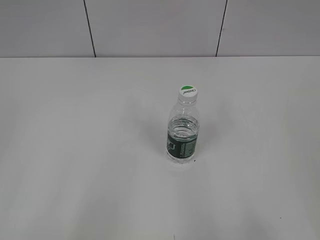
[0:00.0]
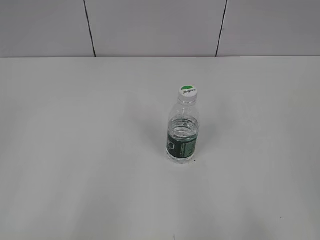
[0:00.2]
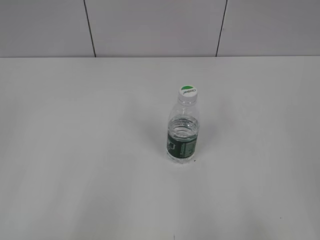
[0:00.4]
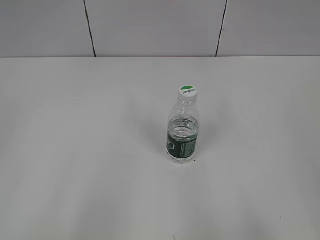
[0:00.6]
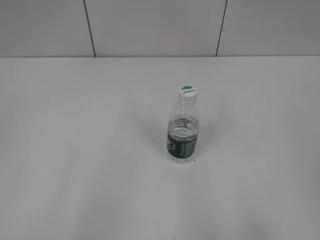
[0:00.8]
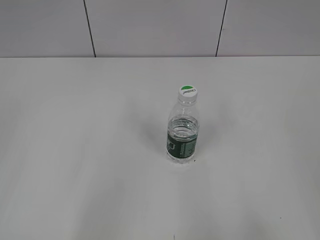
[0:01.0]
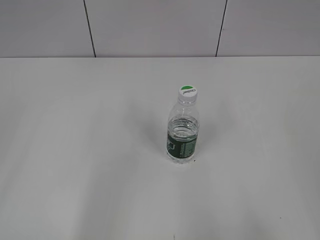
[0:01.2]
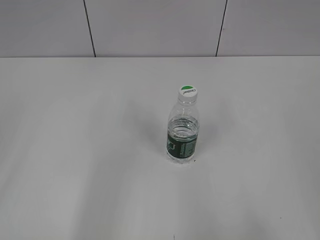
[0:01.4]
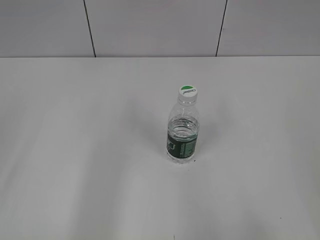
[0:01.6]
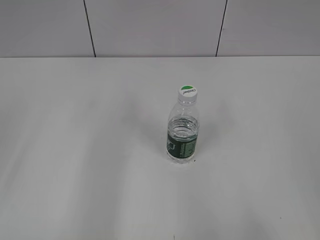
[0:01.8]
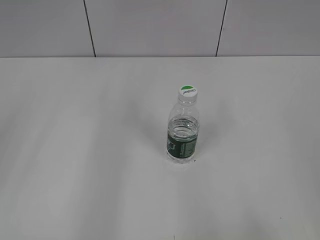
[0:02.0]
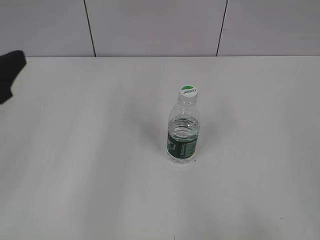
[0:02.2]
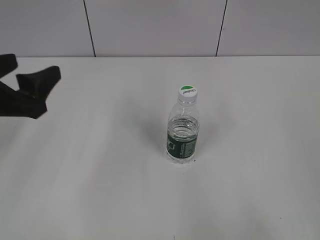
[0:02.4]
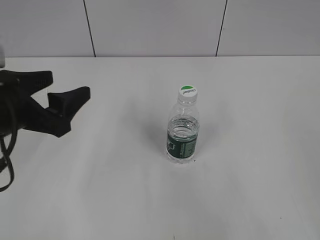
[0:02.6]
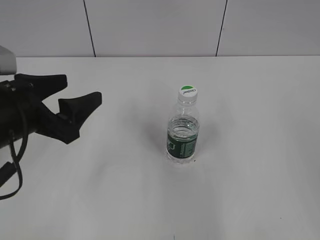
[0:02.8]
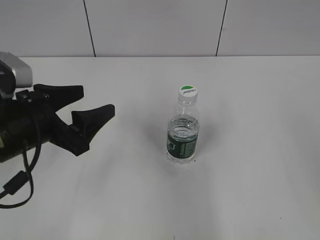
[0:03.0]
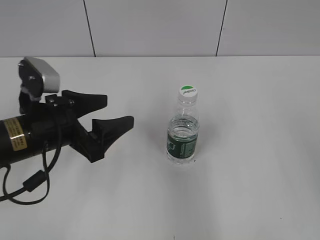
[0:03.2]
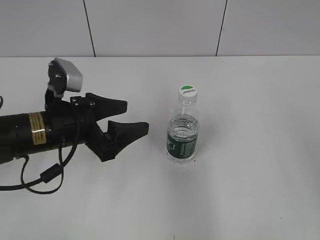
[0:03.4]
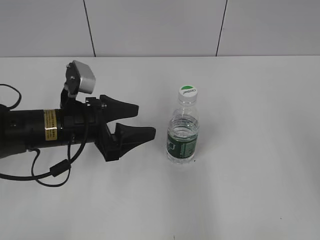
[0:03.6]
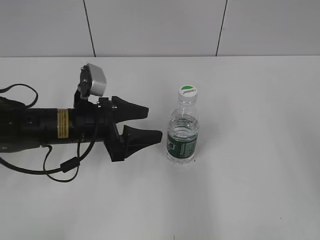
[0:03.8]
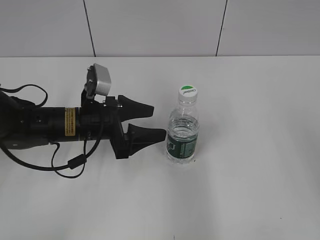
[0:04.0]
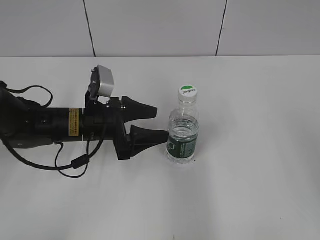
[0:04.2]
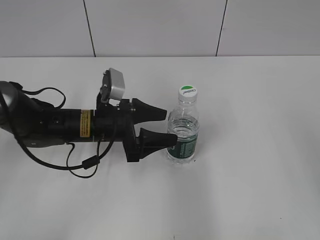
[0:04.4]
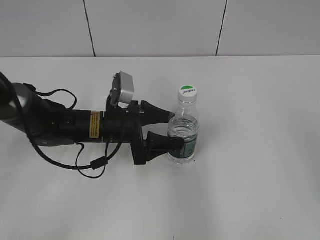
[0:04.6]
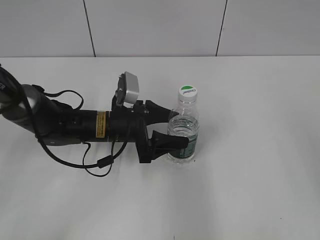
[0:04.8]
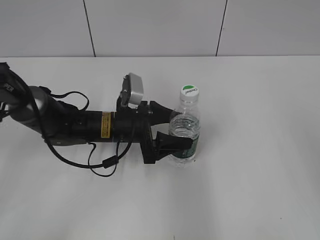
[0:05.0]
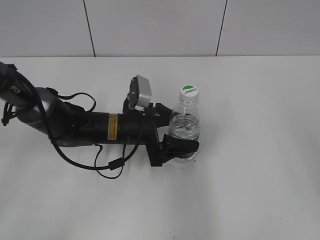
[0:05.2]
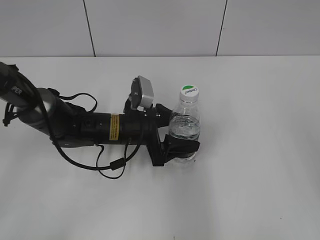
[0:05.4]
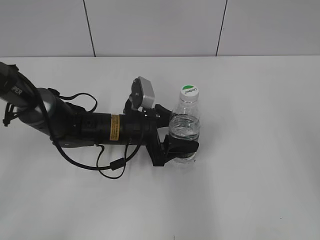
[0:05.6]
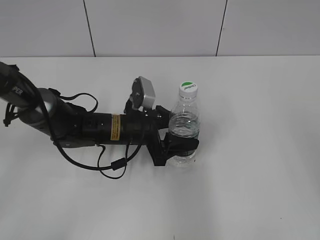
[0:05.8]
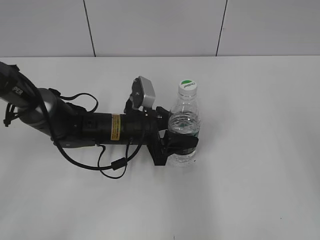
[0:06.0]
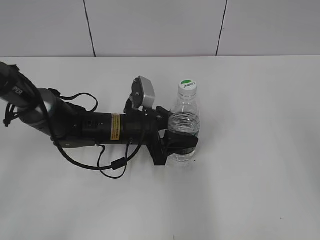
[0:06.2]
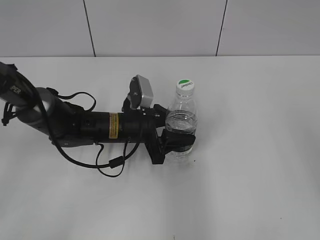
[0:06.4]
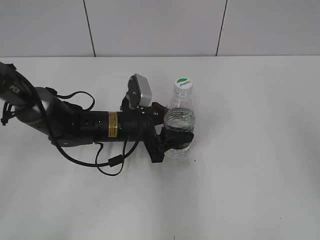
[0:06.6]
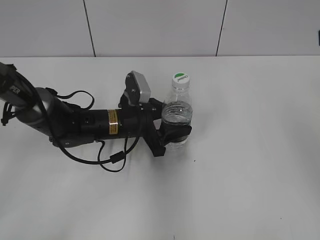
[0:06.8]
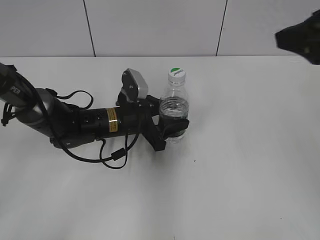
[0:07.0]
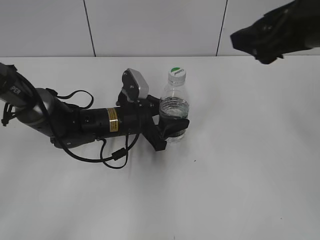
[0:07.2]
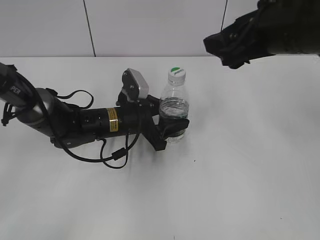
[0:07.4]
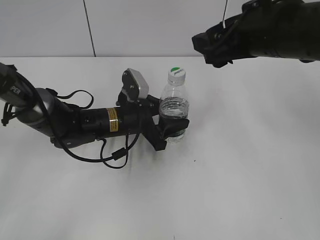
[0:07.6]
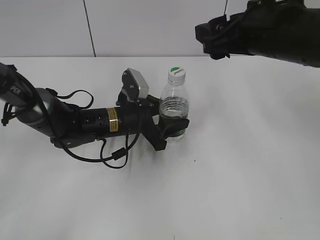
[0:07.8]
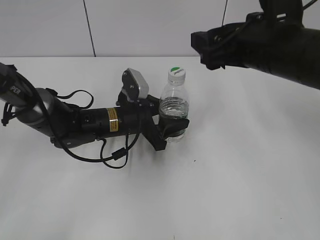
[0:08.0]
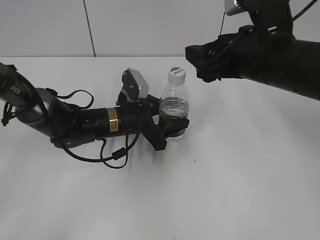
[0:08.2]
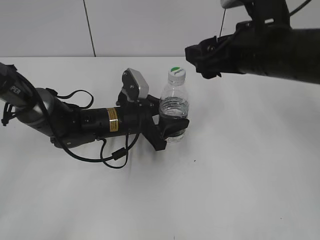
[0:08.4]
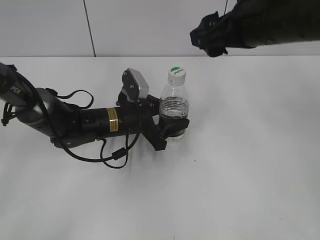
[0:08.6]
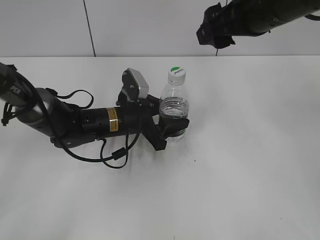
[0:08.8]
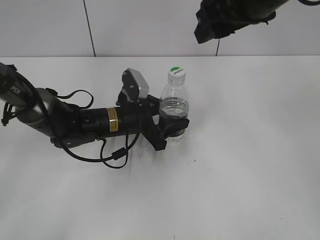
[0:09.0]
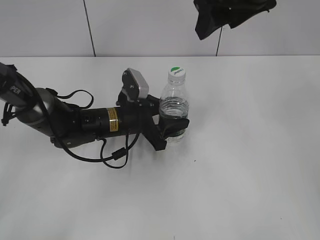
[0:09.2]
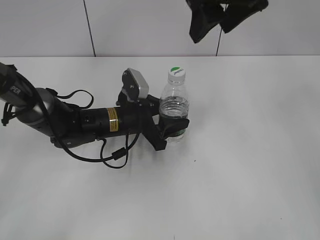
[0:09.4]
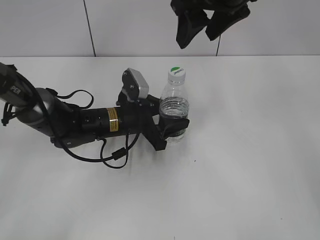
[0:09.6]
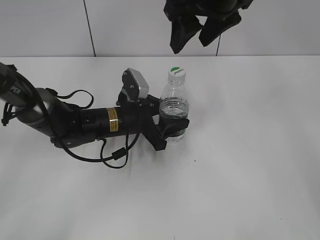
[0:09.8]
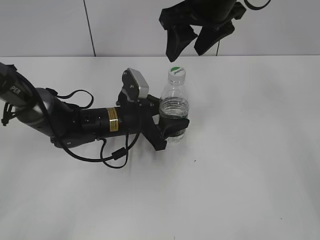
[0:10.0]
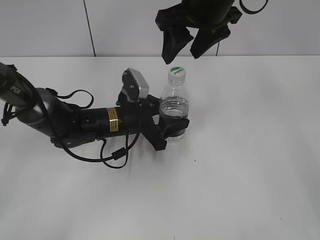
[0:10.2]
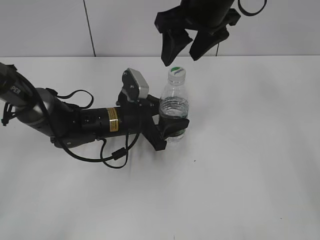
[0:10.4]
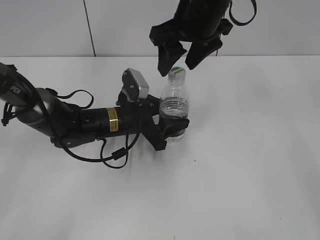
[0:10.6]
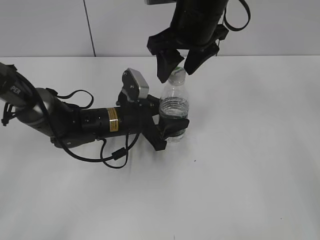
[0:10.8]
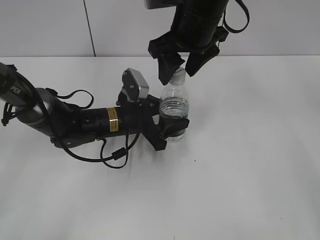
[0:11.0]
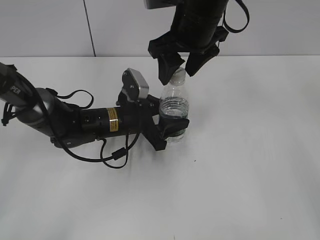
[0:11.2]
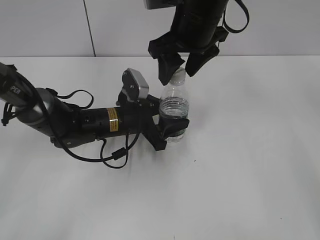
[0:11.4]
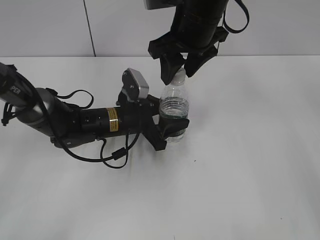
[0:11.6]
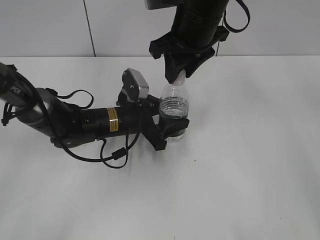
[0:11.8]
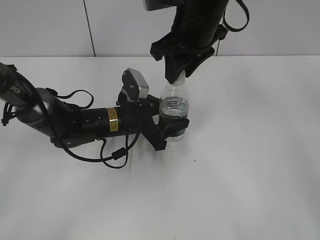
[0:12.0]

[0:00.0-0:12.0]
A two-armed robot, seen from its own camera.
Step, 0:00.0 to 0:06.2: Grasp the bottle and move it to the center of the table with the left gripper.
0:01.6 to 0:03.0: The left gripper heads forward, downward and to the right, covering about 20 cm.
0:03.0 to 0:04.4: The left gripper moves forward, downward and to the right, some 15 cm.
0:04.4 to 0:06.0: The left gripper shifts by some 5 cm, and closes.
0:06.0 to 0:07.6: The right gripper moves to the left and forward, some 20 cm.
0:07.6 to 0:09.0: The right gripper ends up roughly 5 cm from where it was.
0:09.0 to 0:10.4: The right gripper moves to the left and forward, approximately 5 cm.
0:10.4 to 0:12.0: The right gripper closes its fingers.

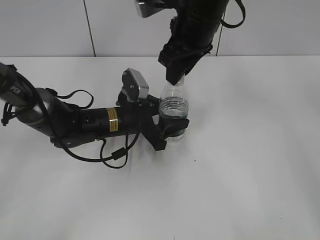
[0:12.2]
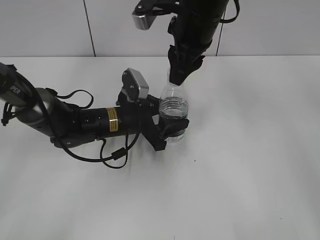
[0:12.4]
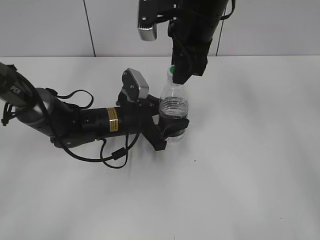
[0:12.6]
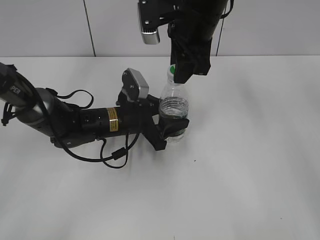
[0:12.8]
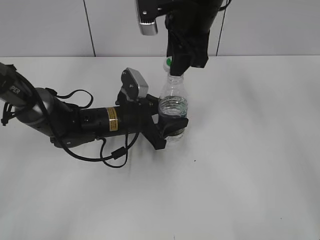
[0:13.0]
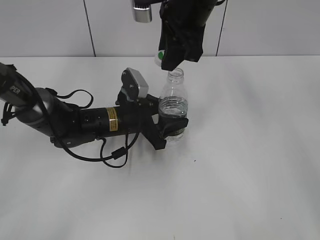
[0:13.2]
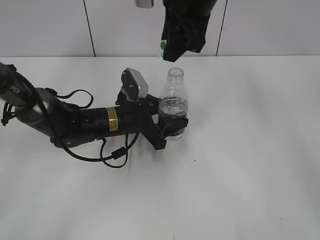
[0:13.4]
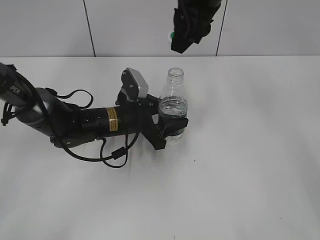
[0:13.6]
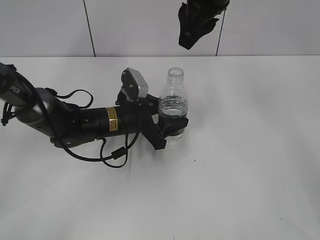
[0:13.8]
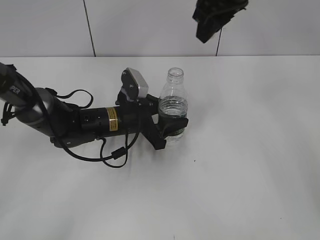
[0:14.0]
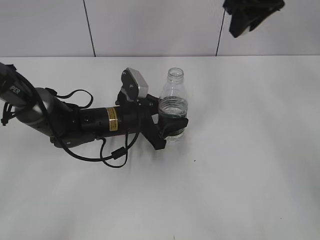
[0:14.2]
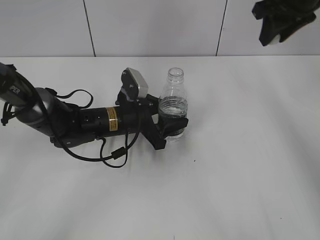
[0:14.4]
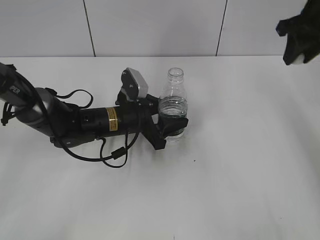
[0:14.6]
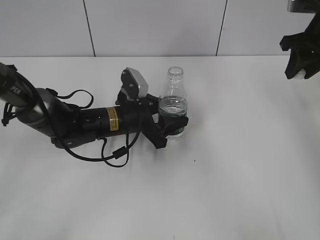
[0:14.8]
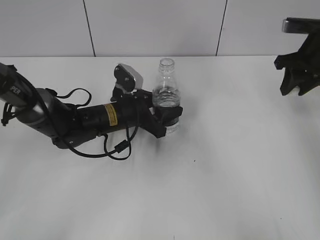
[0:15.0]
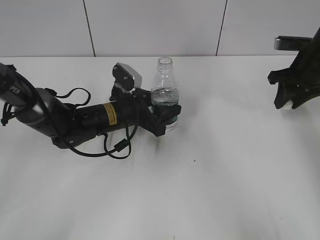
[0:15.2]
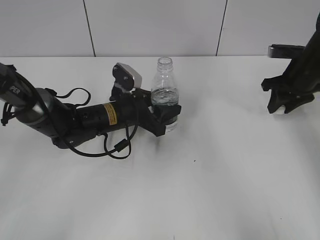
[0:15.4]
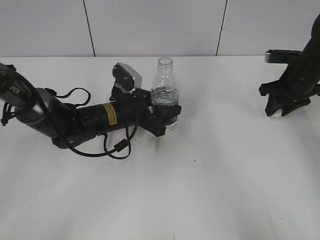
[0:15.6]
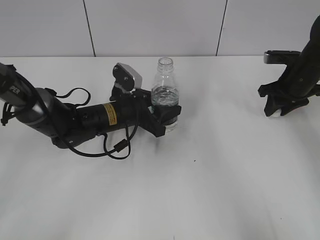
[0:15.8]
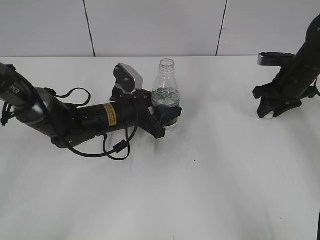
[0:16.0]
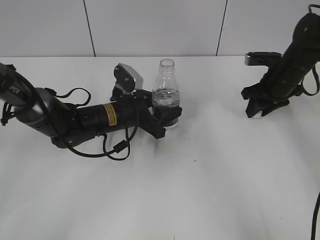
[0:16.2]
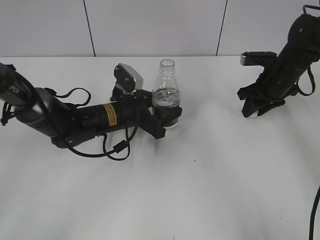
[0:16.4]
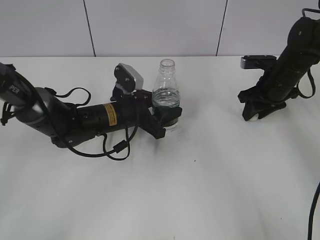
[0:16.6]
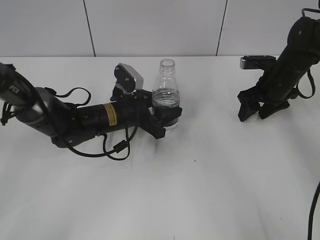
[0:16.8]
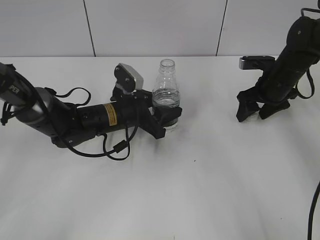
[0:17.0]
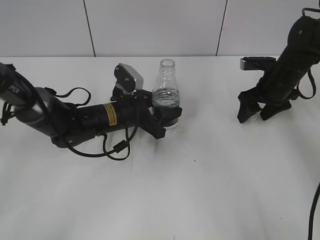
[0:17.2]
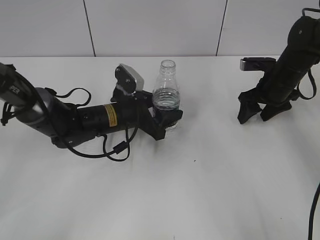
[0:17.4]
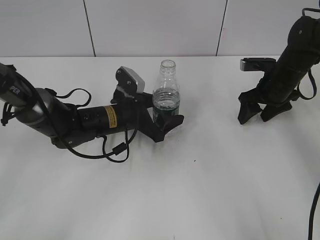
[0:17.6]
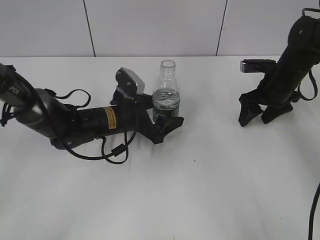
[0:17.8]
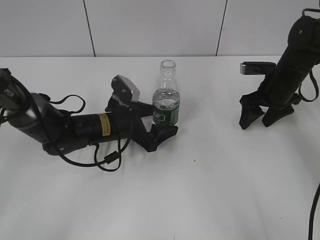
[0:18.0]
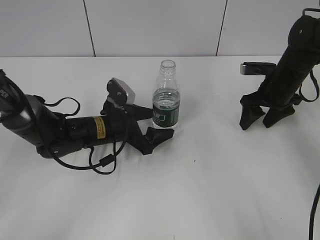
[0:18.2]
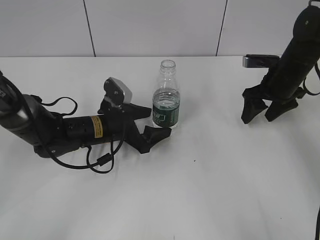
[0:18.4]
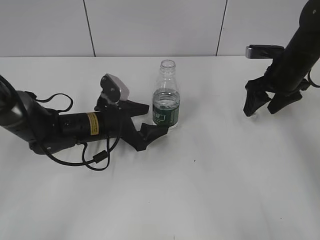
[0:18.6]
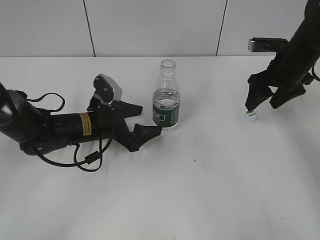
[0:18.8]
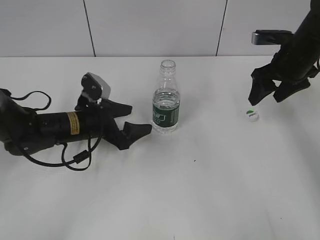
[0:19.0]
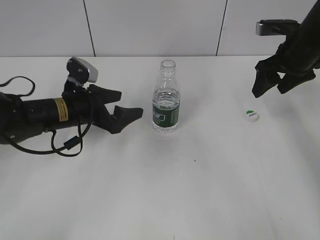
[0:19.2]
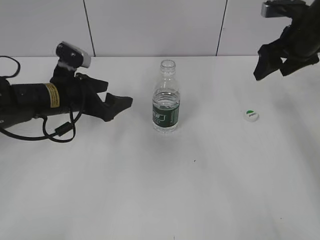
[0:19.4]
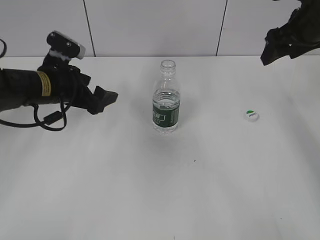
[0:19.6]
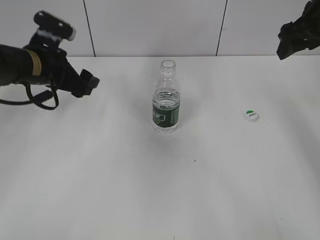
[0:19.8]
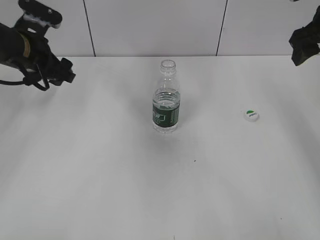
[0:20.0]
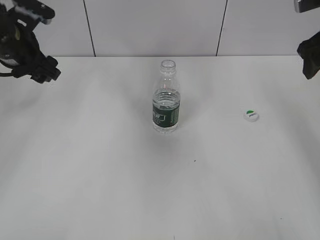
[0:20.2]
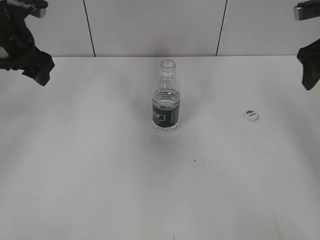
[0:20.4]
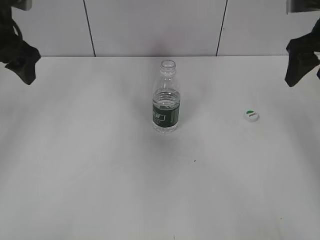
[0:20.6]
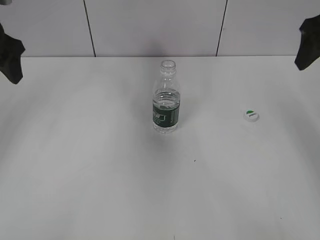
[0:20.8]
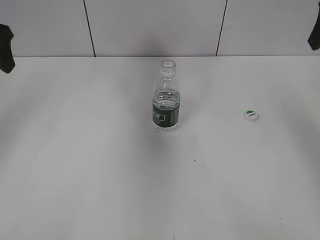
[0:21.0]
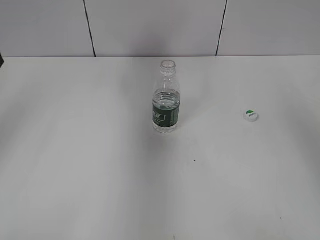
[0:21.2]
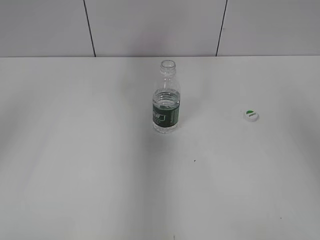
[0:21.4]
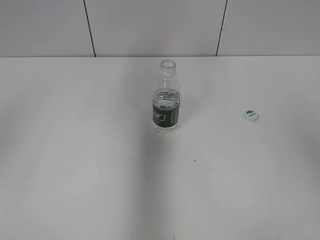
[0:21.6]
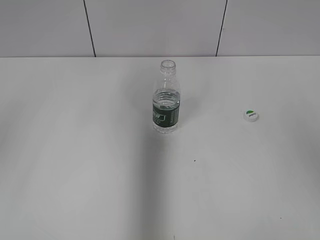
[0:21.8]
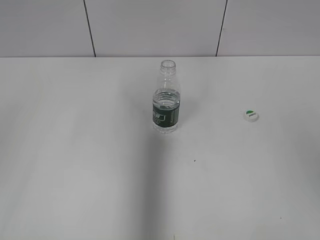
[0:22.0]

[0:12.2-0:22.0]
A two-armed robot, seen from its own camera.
Step, 0:13.4 to 0:17.2: Place the bottle cap on the table with the right gripper.
Step, 0:17.4 to 0:18.6: Place the bottle on the table with the left gripper.
0:12.2 to 0:13.6: The right gripper heads upward, covering about 5 cm.
0:13.6 to 0:15.0: The right gripper is displaced to the right and downward by approximately 25 cm.
0:15.0 to 0:16.4: The right gripper travels downward by approximately 10 cm.
0:16.4 to 0:17.8: The left gripper opens up; the right gripper opens its fingers.
0:17.8 to 0:19.2: The left gripper heads to the left, covering roughly 10 cm; the right gripper heads upward, covering some 10 cm.
0:19.2 to 0:20.6: The left gripper goes about 20 cm upward and to the left, while the right gripper heads upward, covering some 5 cm.
0:20.6 to 0:22.0: The right gripper goes roughly 20 cm backward and upward. Meanwhile the left gripper is displaced backward by some 20 cm.
